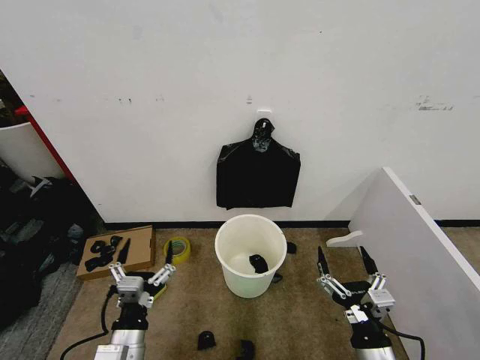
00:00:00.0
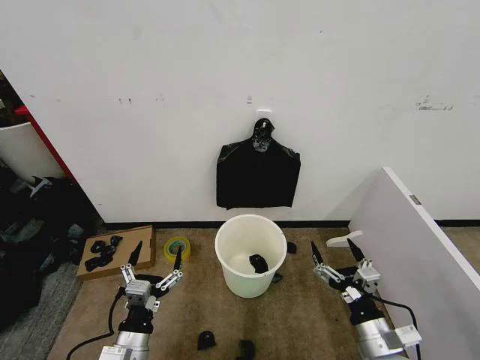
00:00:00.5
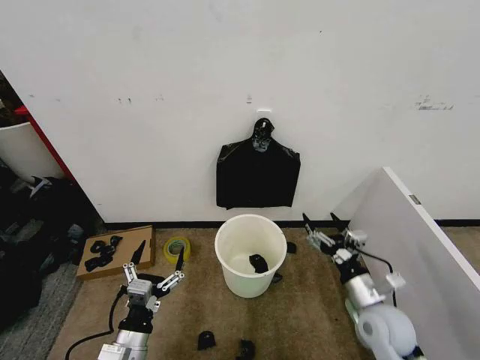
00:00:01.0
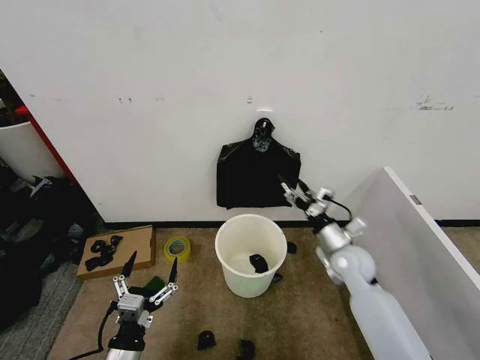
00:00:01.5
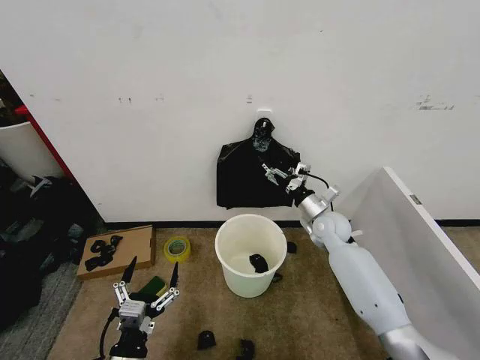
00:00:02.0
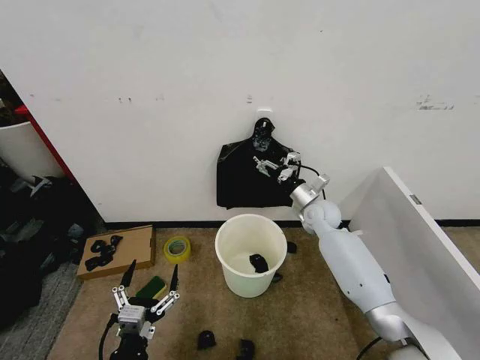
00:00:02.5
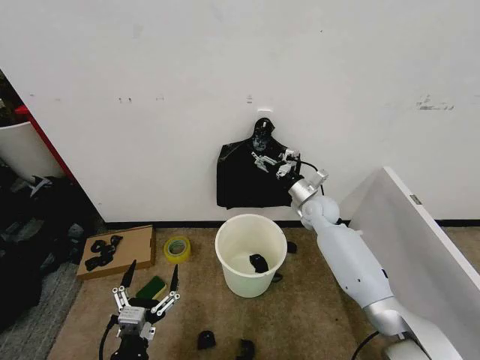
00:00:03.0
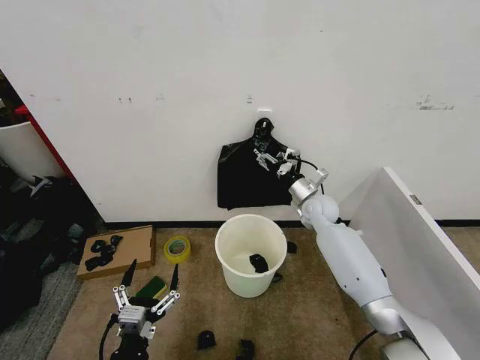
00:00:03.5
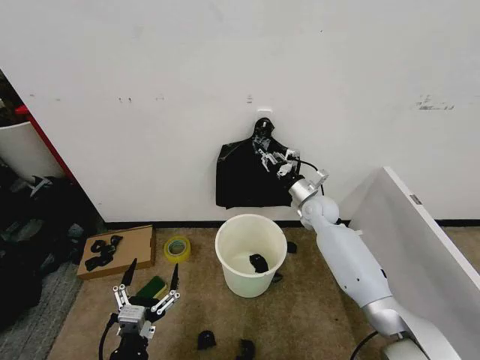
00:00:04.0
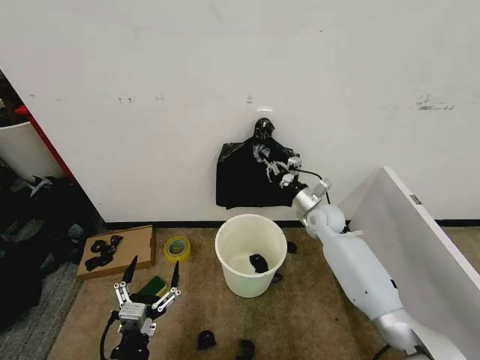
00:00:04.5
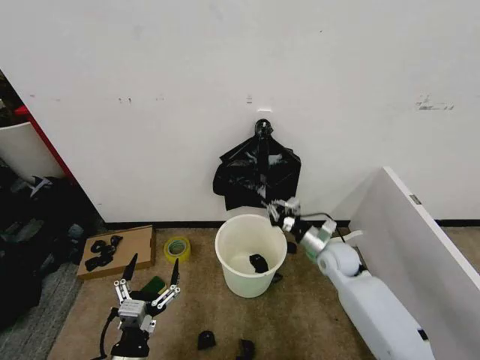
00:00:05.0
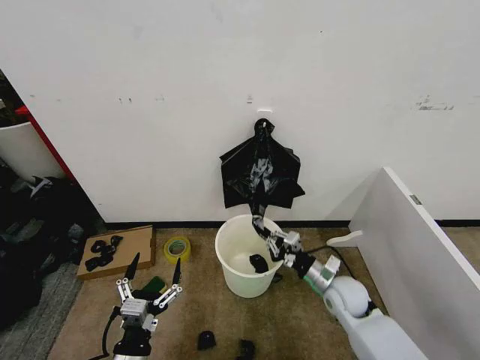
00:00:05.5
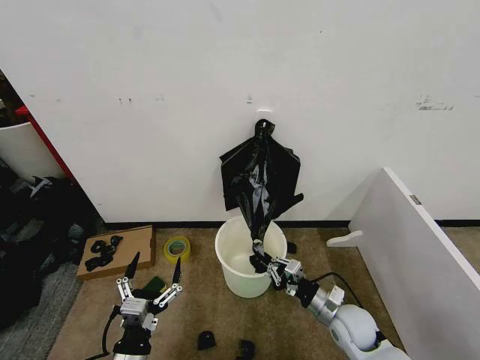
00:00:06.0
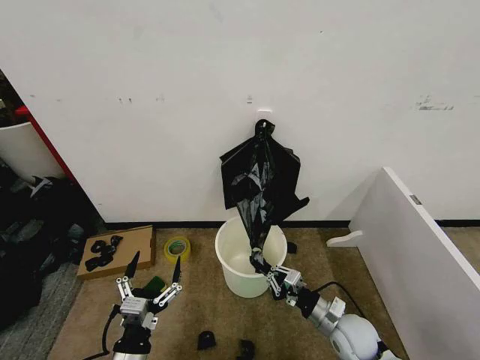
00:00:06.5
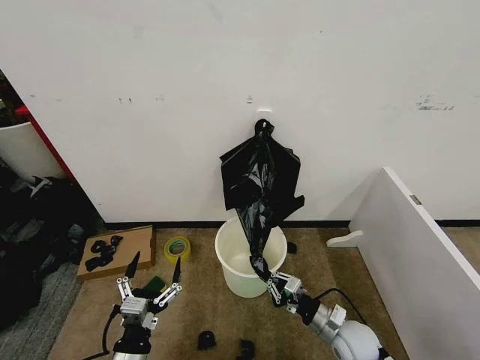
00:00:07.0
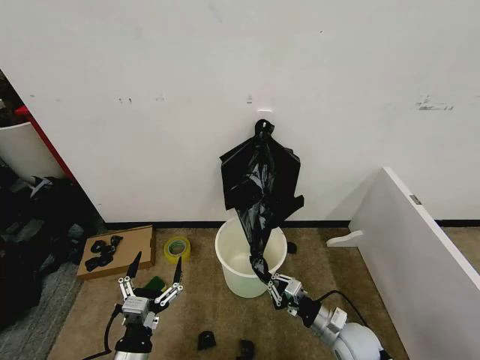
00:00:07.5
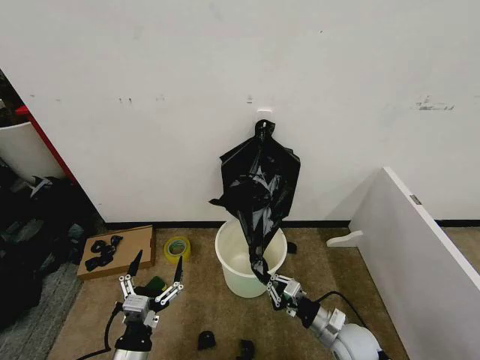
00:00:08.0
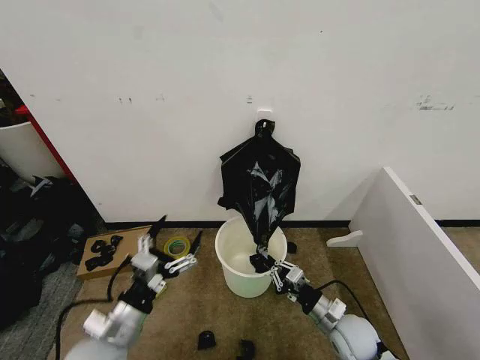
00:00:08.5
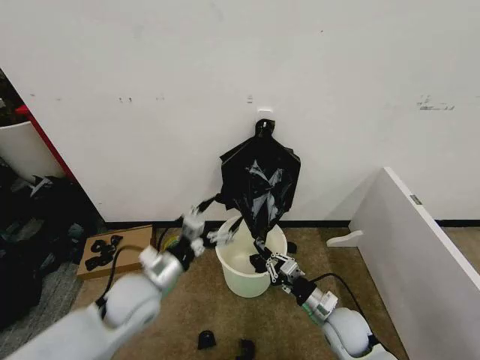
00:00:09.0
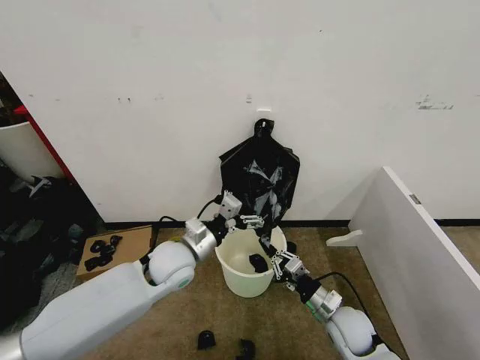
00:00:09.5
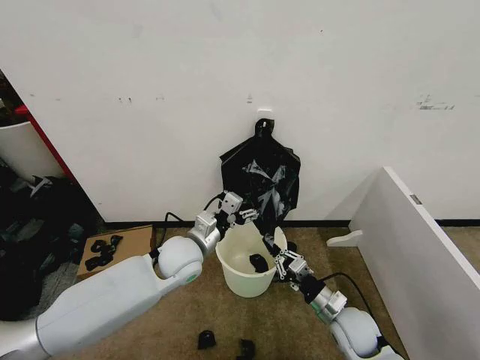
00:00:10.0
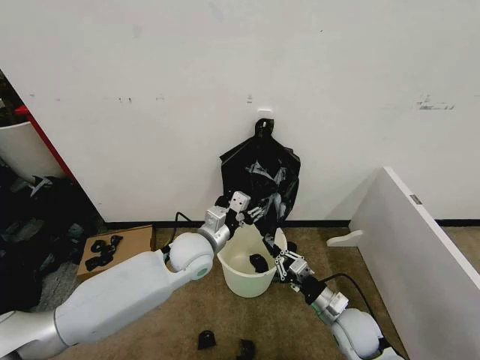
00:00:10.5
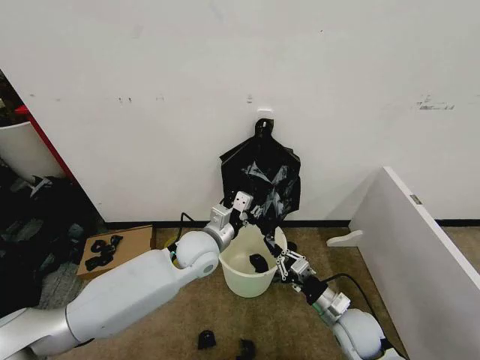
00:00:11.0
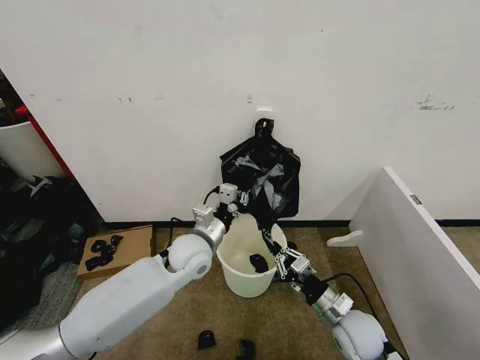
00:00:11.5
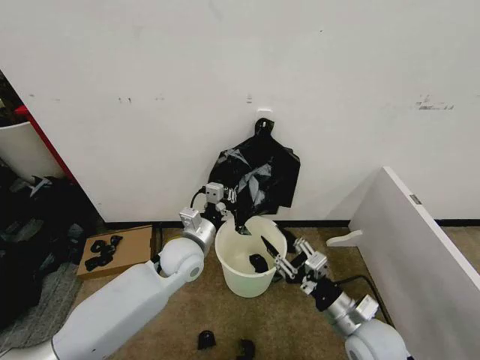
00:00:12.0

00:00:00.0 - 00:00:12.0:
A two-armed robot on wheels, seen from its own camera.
Task of the whole recording: Place the garbage bag over the trash bin.
00:00:02.0 - 00:00:04.0: The right gripper is displaced forward by approximately 5 cm, and closes.
00:00:04.0 - 00:00:06.0: The right gripper travels backward and downward by roughly 30 cm.
00:00:06.0 - 00:00:08.0: The grippers make only small movements.
00:00:08.0 - 00:00:10.0: The left gripper shifts some 25 cm forward.
00:00:10.0 - 00:00:12.0: The right gripper moves upward, about 10 cm, and opens up, while the left gripper closes up.

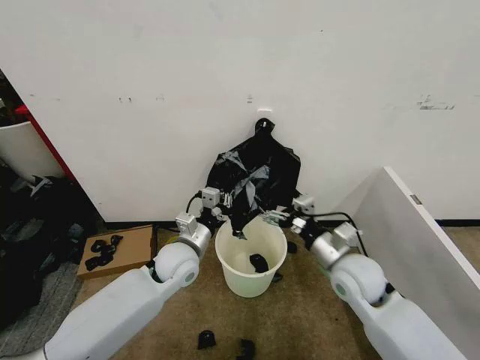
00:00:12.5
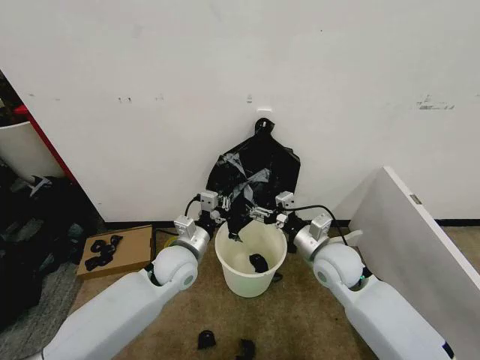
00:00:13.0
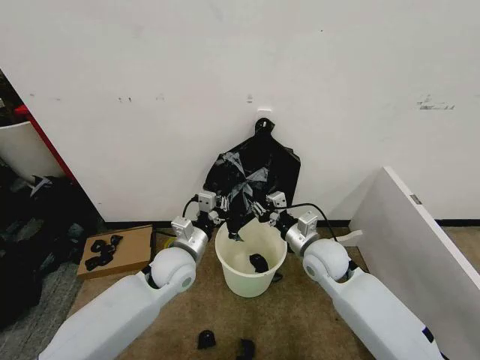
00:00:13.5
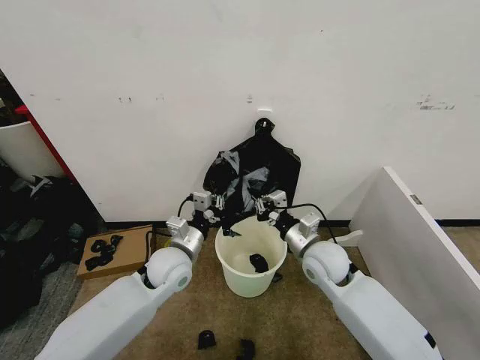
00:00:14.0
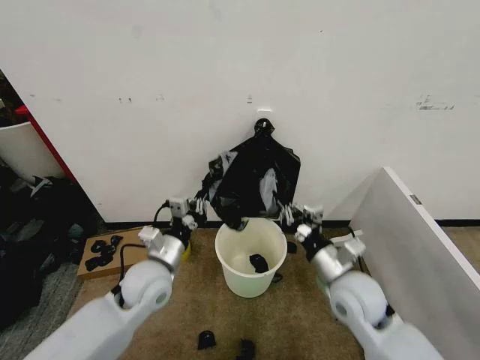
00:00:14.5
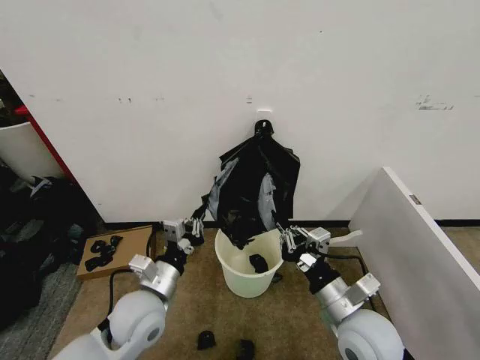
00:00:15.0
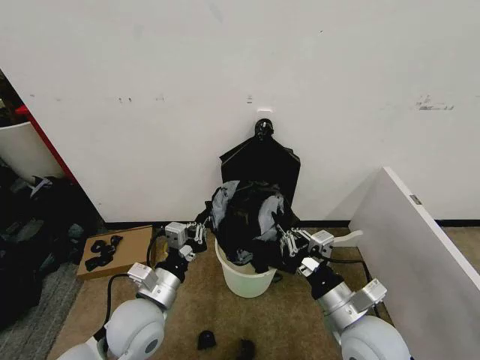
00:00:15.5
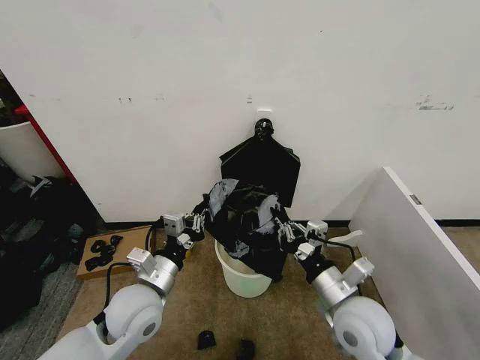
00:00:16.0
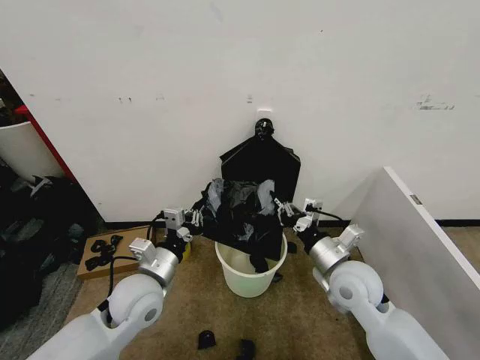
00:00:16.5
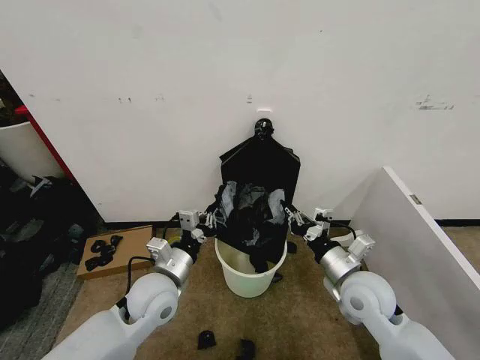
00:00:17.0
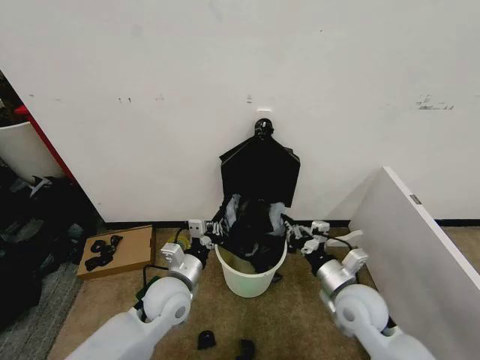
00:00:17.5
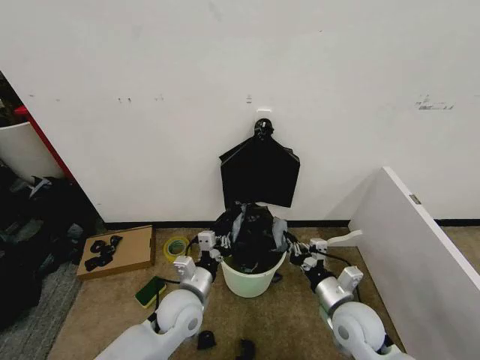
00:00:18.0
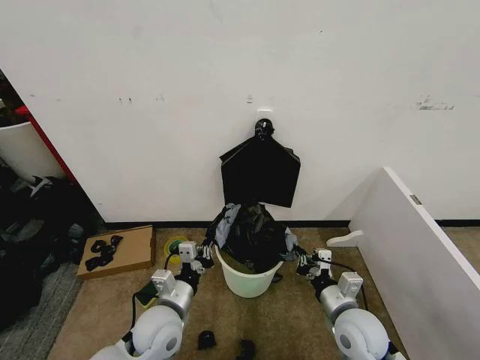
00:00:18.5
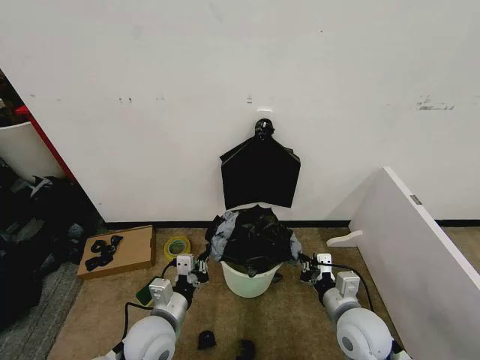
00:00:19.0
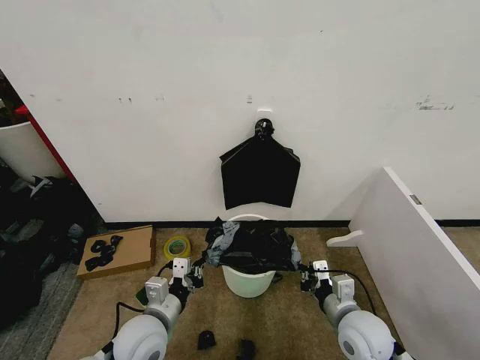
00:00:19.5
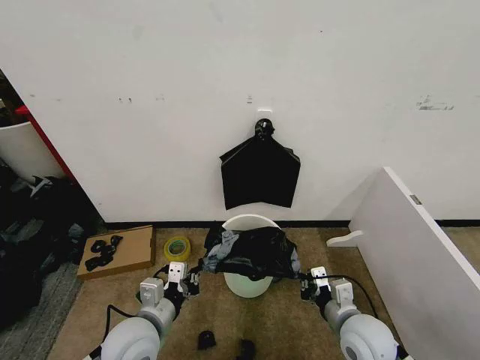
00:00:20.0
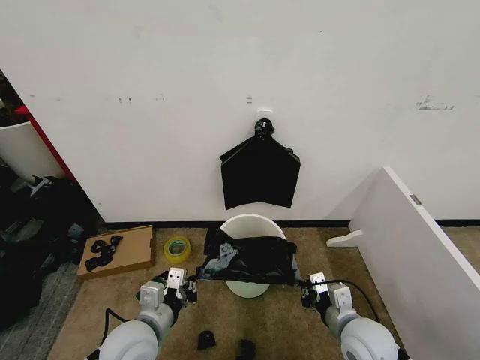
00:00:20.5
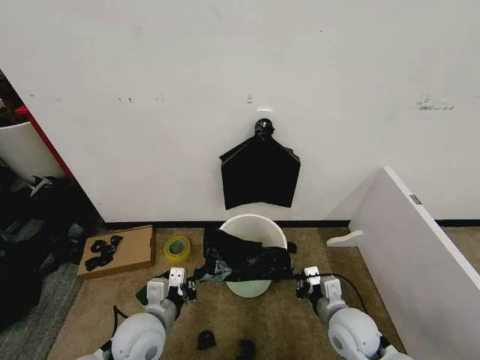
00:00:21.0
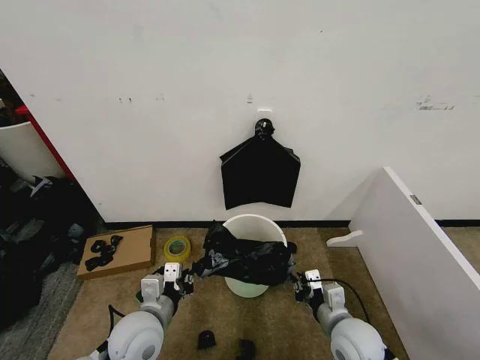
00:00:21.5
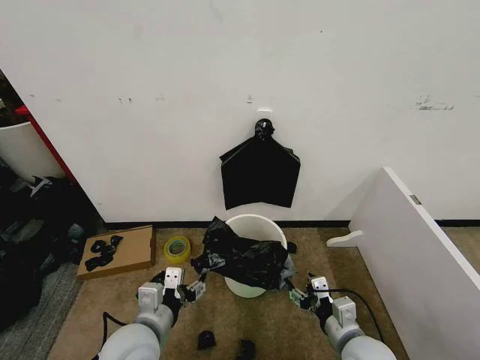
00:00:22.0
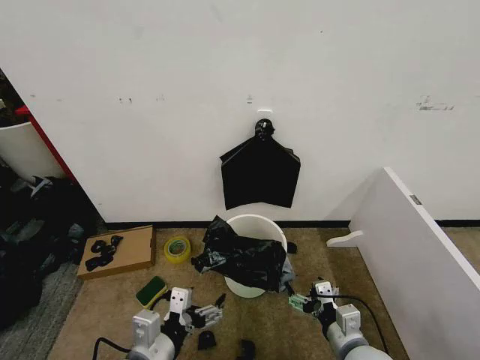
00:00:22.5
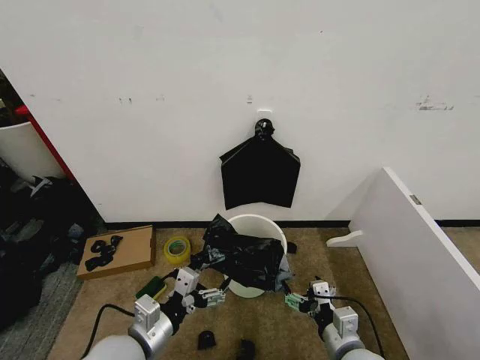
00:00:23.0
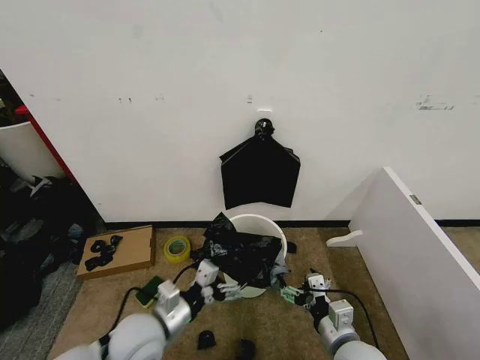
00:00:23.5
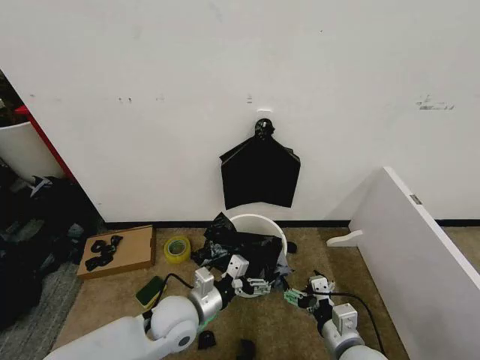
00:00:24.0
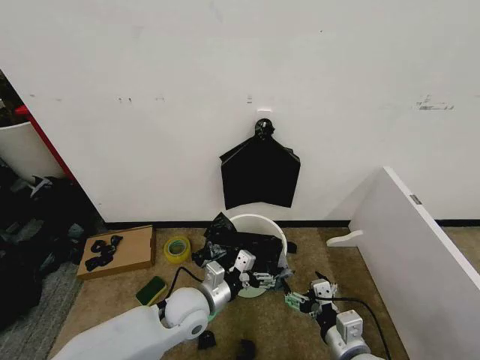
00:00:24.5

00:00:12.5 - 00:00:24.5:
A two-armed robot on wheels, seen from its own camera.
Task of the whole recording: Place the garbage bag over the trash bin.
00:00:12.5 - 00:00:14.5: The right gripper travels forward and back again, about 5 cm each way, and closes, while the left gripper travels backward by some 5 cm.
00:00:14.5 - 00:00:16.5: The right gripper reaches approximately 10 cm backward, then returns.
00:00:16.5 - 00:00:18.5: The left gripper heads downward, covering some 10 cm. The right gripper moves downward and backward, about 10 cm.
00:00:18.5 - 00:00:20.5: The left gripper moves roughly 5 cm.
00:00:20.5 - 00:00:22.5: The left gripper shifts approximately 5 cm backward, and opens its fingers. The right gripper opens up.
00:00:22.5 - 00:00:24.5: The left gripper goes about 20 cm forward, downward and to the right.

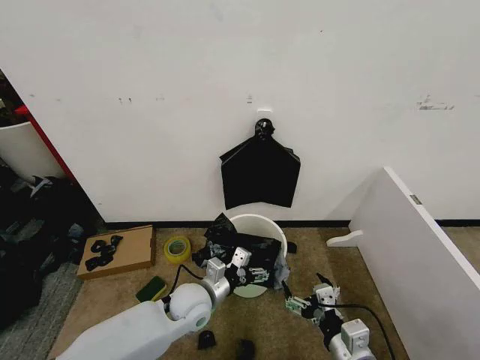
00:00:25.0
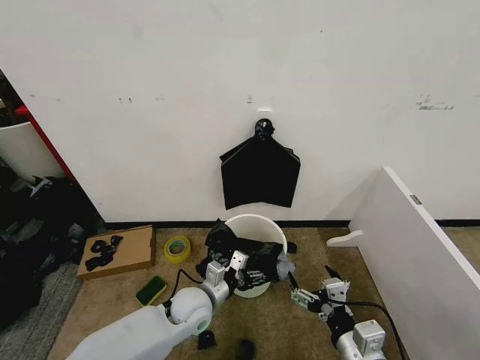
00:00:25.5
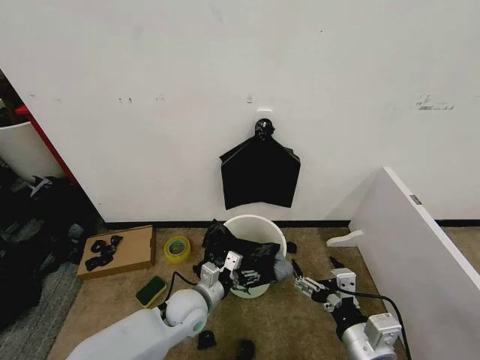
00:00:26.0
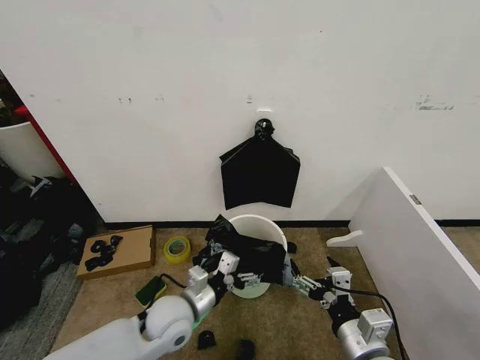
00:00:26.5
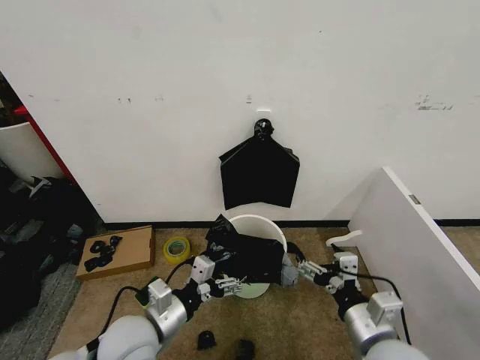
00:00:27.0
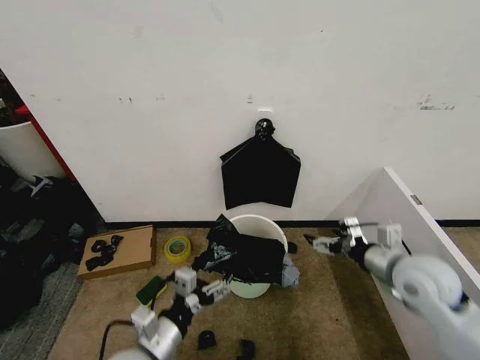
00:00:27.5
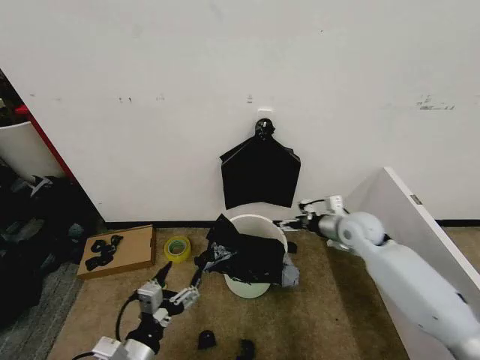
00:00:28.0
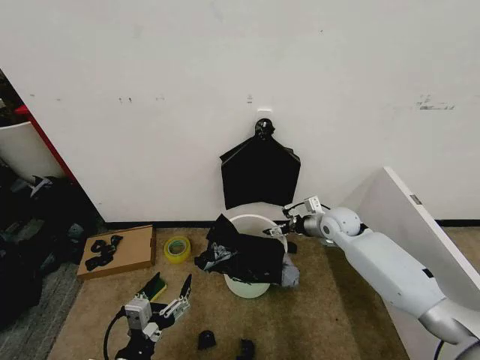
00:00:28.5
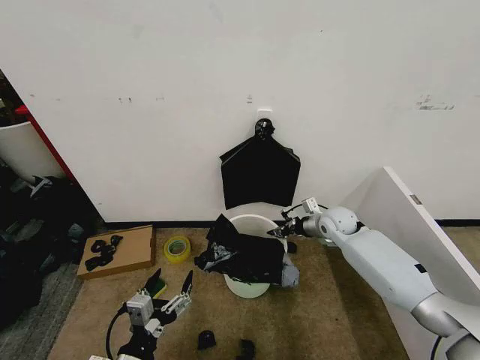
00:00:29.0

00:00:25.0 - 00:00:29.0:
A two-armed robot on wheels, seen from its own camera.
Task of the whole recording: Place the garbage bag over the trash bin.
00:00:25.0 - 00:00:27.0: The left gripper moves backward, upward and to the left, roughly 15 cm; the right gripper shifts approximately 5 cm upward.
00:00:27.0 - 00:00:29.0: The right gripper is displaced forward by some 35 cm, and closes up; the left gripper goes roughly 10 cm backward.
